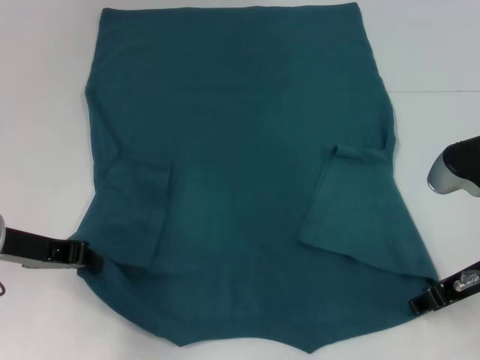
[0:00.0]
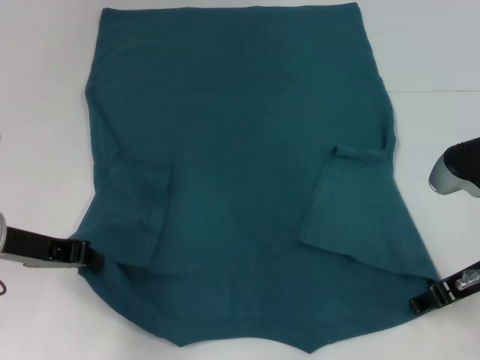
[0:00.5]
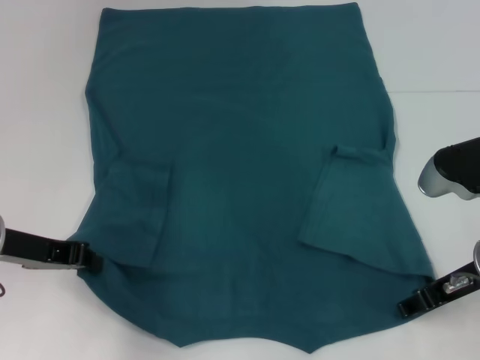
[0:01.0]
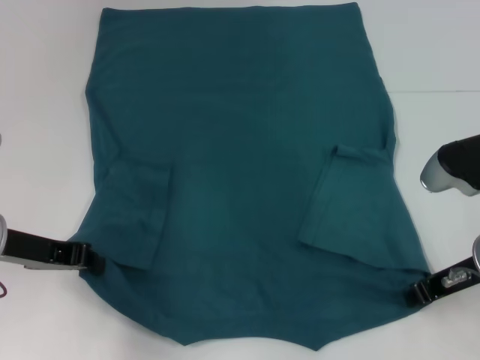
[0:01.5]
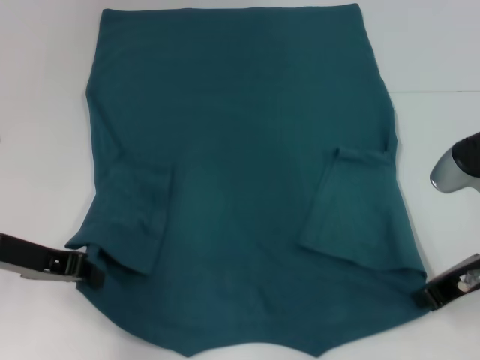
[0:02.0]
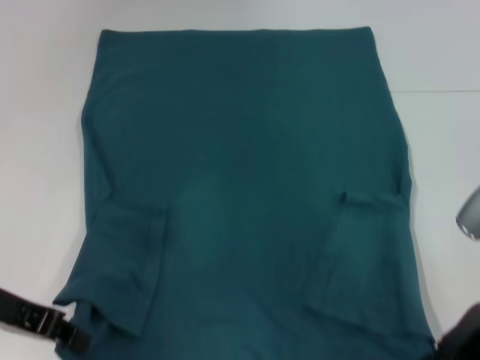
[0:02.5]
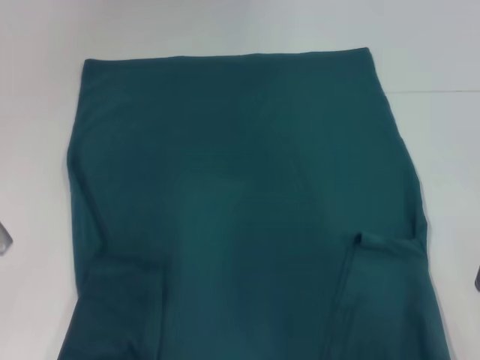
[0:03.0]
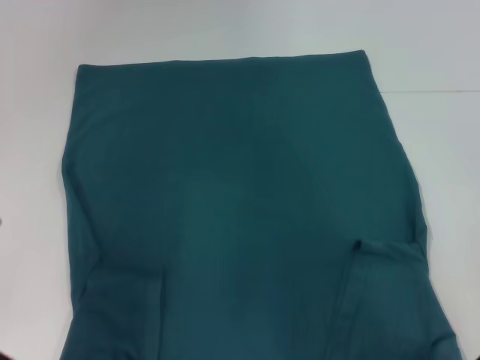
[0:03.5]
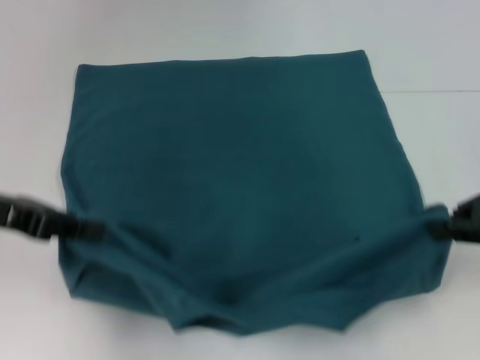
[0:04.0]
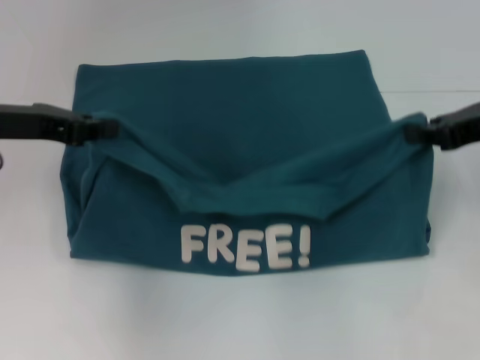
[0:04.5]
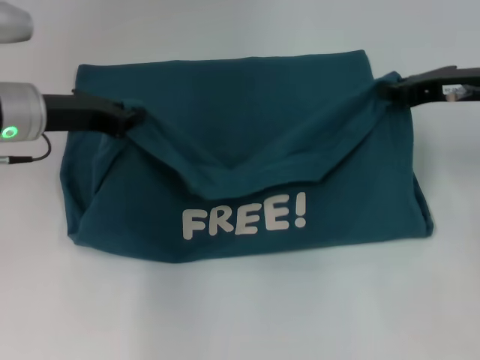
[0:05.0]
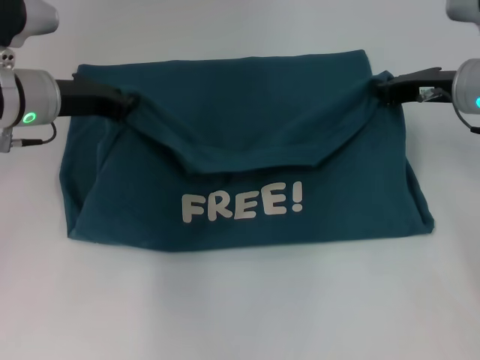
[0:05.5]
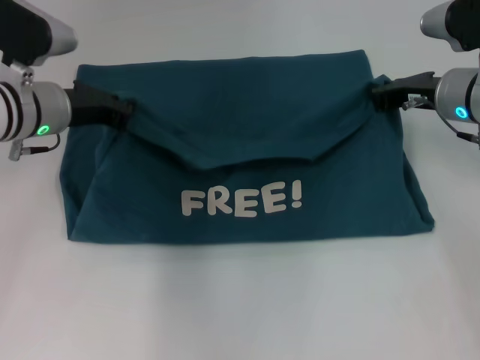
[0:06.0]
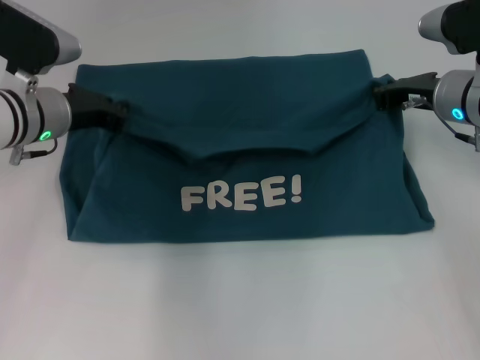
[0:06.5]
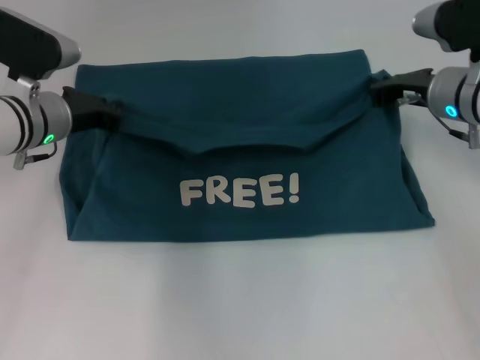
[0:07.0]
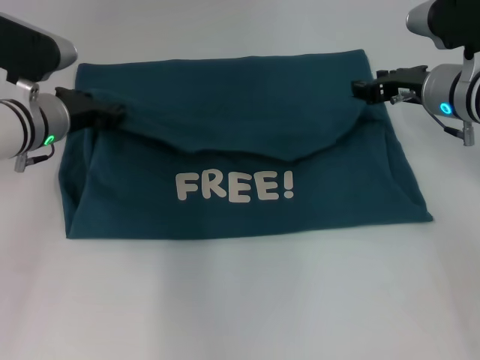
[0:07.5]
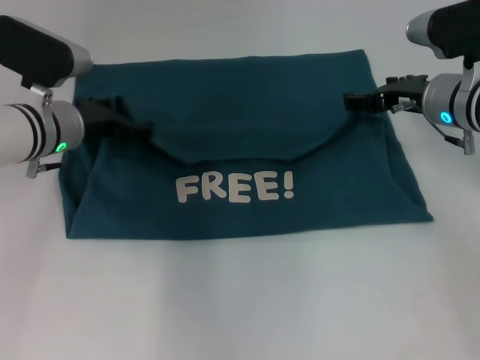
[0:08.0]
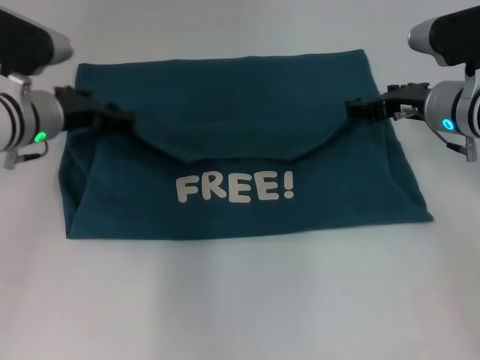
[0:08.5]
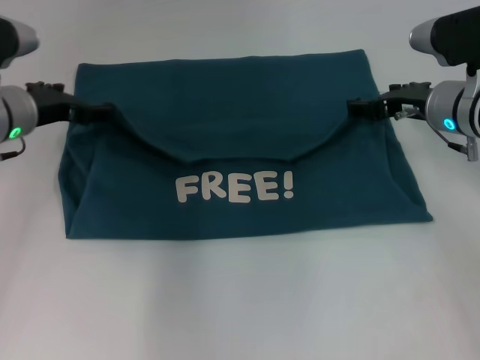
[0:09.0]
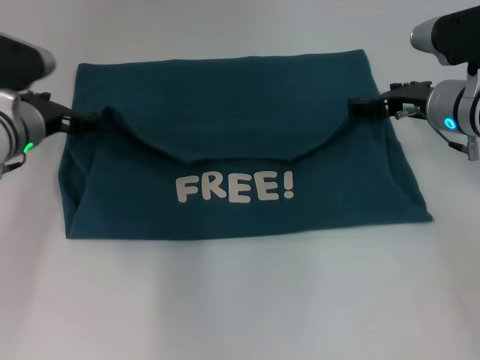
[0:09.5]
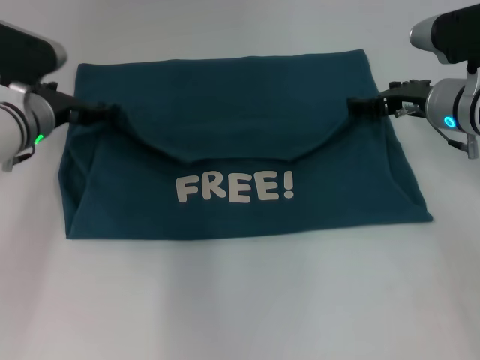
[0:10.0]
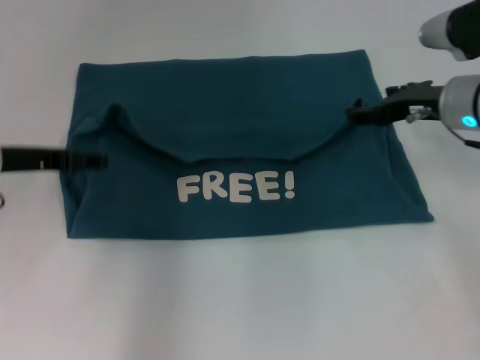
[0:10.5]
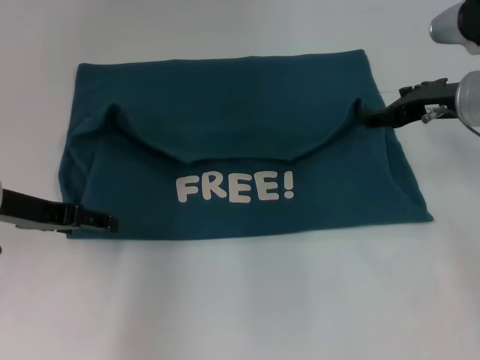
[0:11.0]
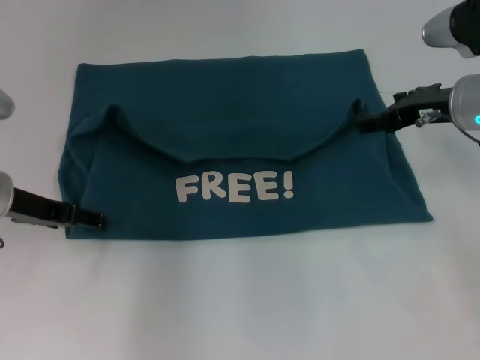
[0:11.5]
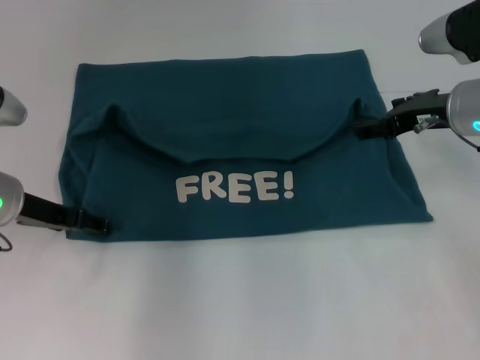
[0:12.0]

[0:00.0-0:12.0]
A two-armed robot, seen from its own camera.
Step, 0:02.0 to 0:08.5: Fold the clothes to the left.
Step, 0:02.0 to 0:08.5: Fold the clothes to the right.
0:00.0 to 0:02.0: The right gripper closes up.
0:02.0 to 0:04.0: The right gripper travels upward and to the right by roughly 10 cm. Meanwhile the left gripper heads upward, covering about 5 cm.
0:04.0 to 0:06.0: The right gripper is displaced forward, downward and to the left by some 15 cm. Meanwhile the left gripper goes about 15 cm forward, to the right and downward.
0:06.0 to 0:08.0: The left gripper opens up; the right gripper opens.
0:08.0 to 0:10.0: The grippers make only small movements.
0:10.0 to 0:12.0: The left gripper shifts about 5 cm backward.

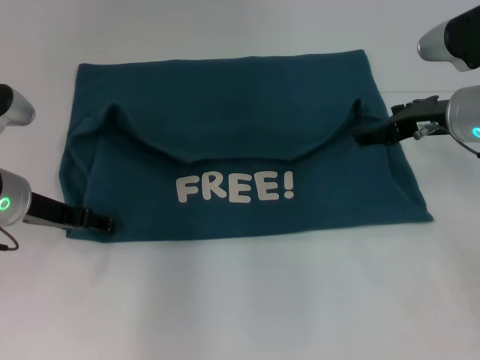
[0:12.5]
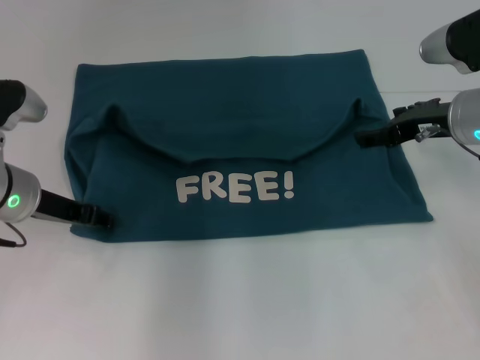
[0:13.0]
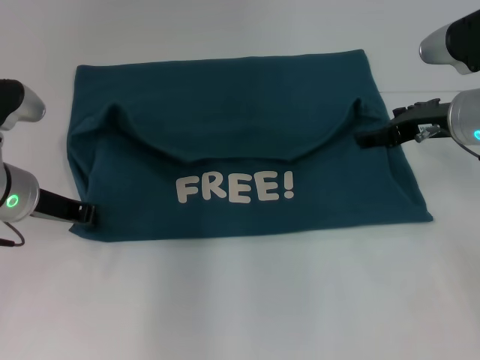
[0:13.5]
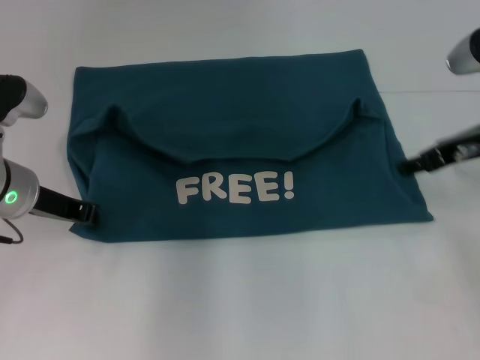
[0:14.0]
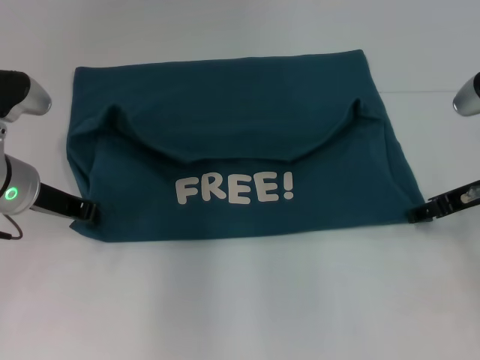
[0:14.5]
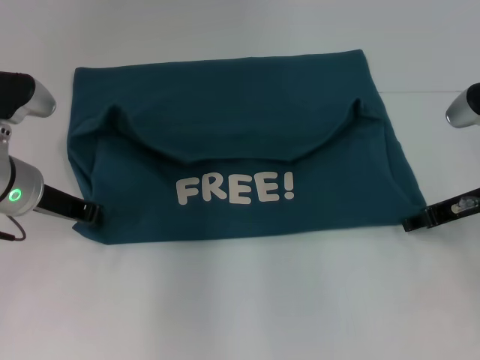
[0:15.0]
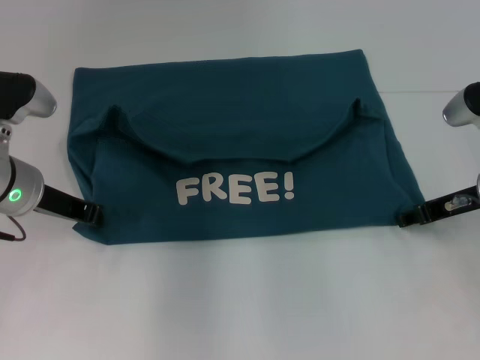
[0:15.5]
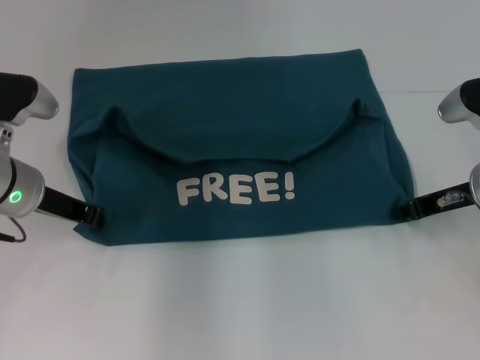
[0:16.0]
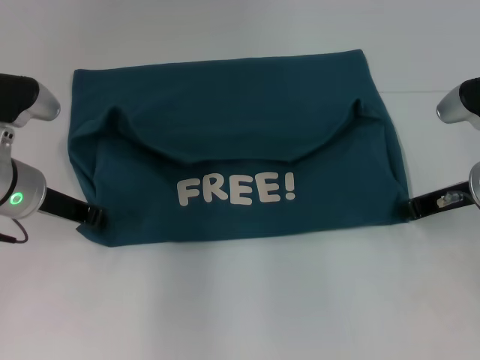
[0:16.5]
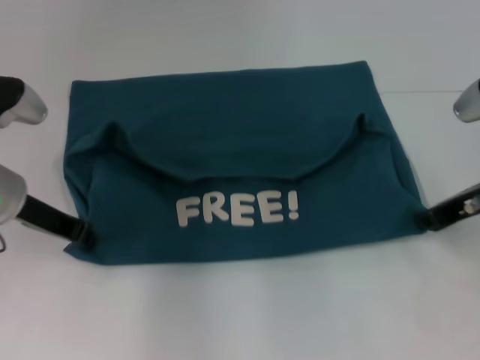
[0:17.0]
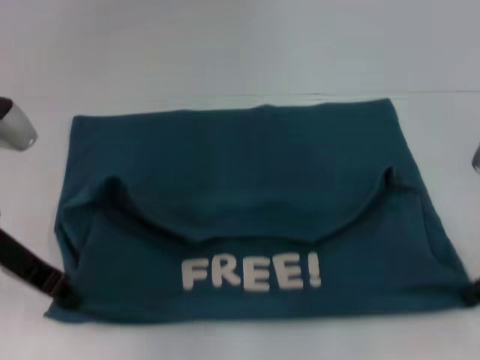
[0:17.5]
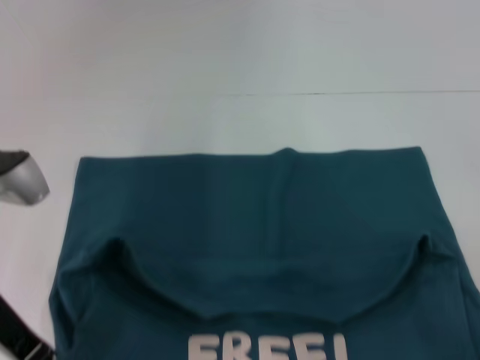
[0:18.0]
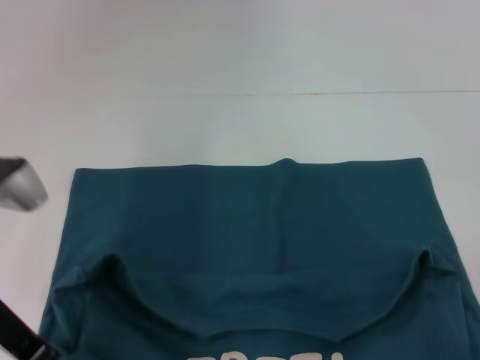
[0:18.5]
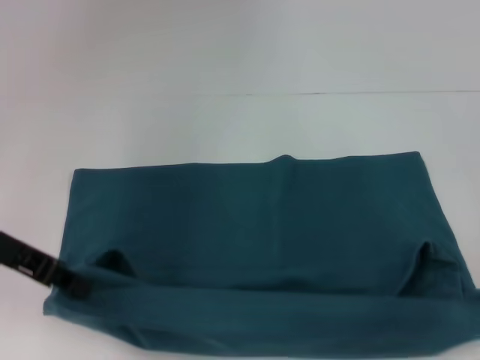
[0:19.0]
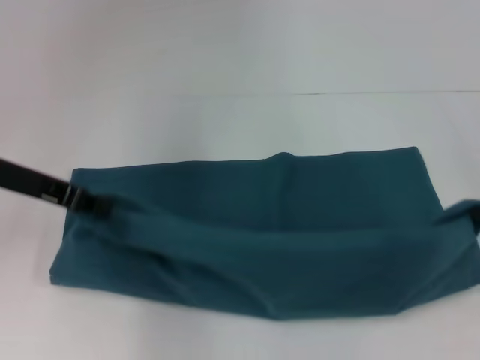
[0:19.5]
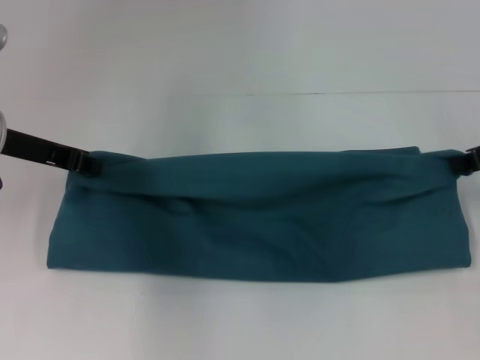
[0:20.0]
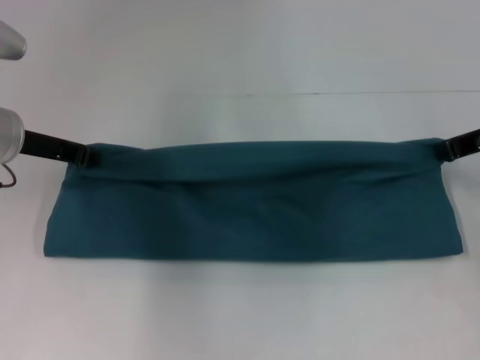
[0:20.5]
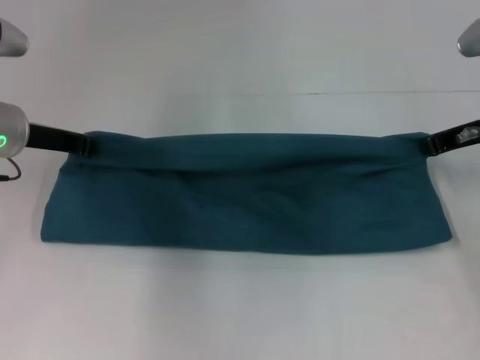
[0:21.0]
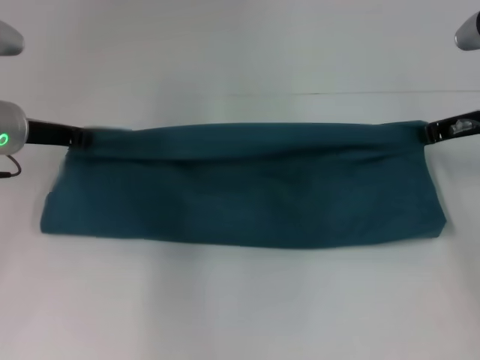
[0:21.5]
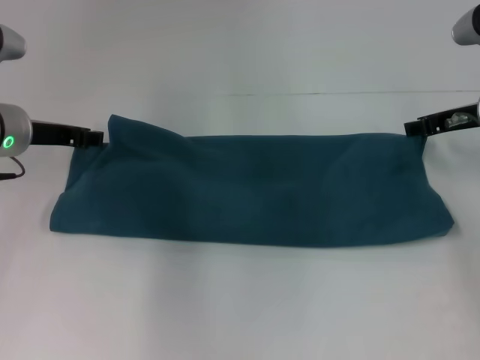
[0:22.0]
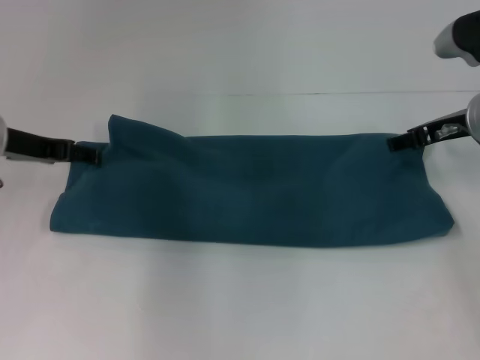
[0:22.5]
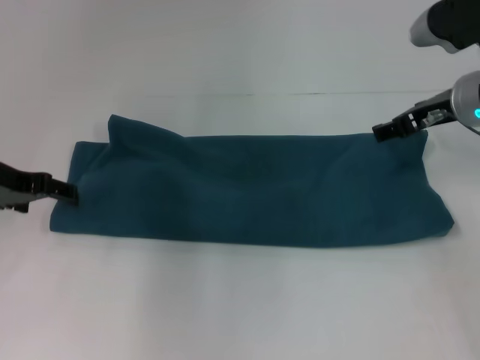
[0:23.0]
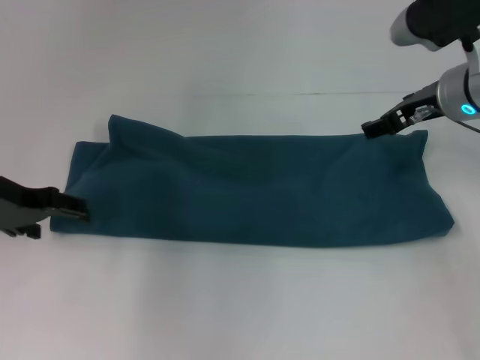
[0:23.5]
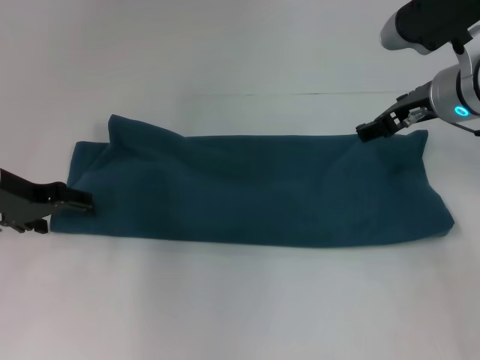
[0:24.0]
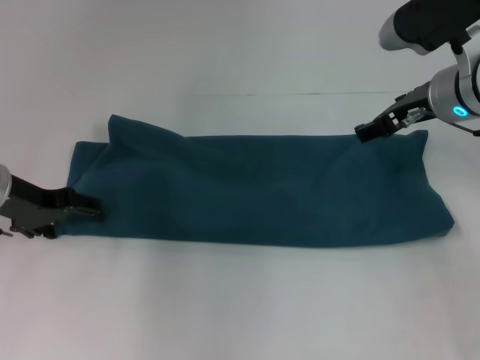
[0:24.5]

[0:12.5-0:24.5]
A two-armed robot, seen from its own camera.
Step, 0:12.5 to 0:18.5: Pull the clothes with your left hand.
Step, 0:12.5 to 0:18.5: Pull the clothes with your right hand.
Step, 0:19.0 to 0:22.0: Fold the clothes to the left.
Step, 0:19.0 to 0:22.0: Fold the clothes to the right.
0:12.5 to 0:14.5: The right gripper moves about 5 cm. The left gripper closes up.
0:14.5 to 0:16.5: The right gripper closes.
0:16.5 to 0:18.5: The grippers both shift backward by some 10 cm.
0:18.5 to 0:20.5: Both grippers move forward, approximately 10 cm.
0:20.5 to 0:22.5: The right gripper opens up; the left gripper opens its fingers.
0:22.5 to 0:24.5: The right gripper moves some 5 cm.

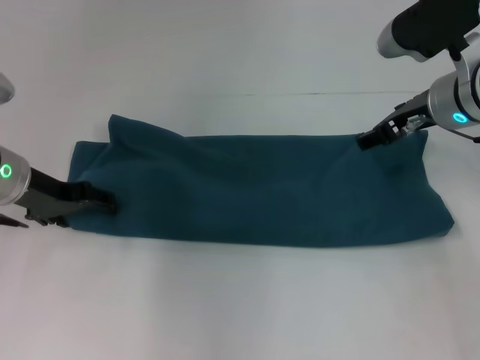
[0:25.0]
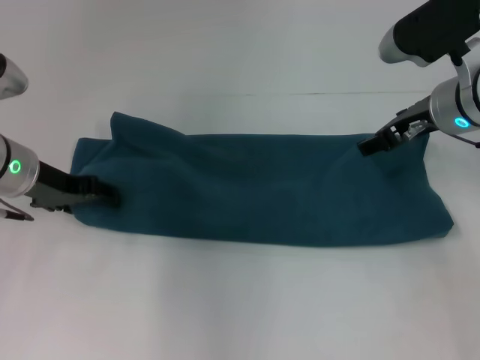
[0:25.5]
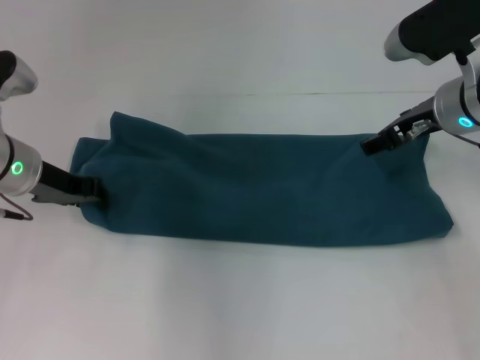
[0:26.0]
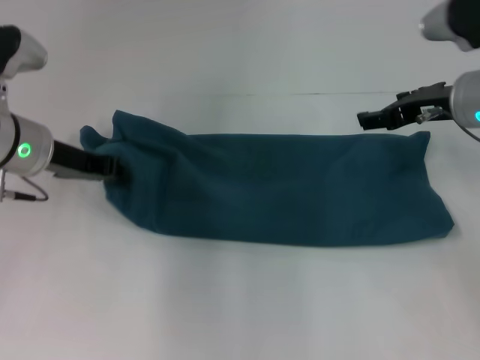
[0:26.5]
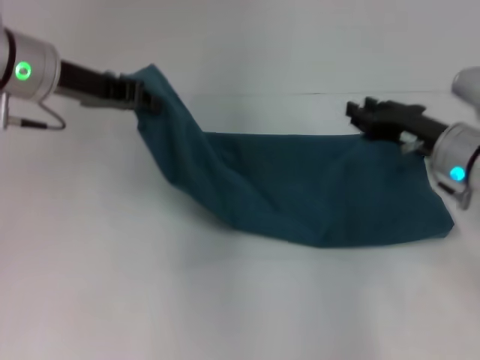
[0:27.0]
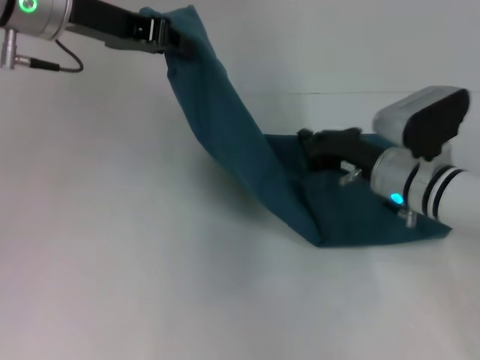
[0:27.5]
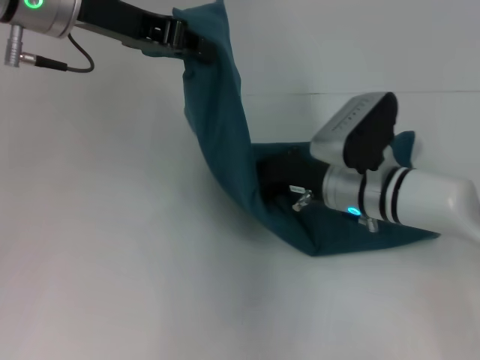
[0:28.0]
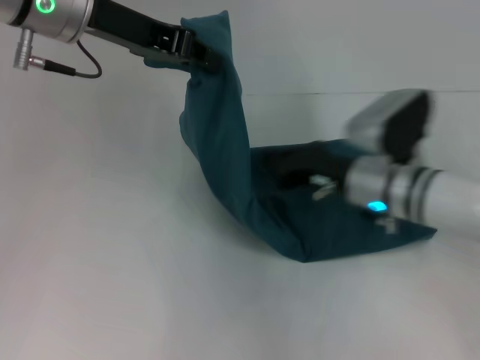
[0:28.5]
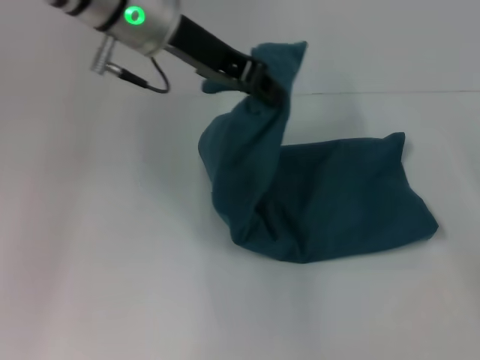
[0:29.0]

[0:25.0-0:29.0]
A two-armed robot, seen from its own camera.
Step, 0:25.0 to 0:28.5: Press the middle of the clothes with your right hand.
0:25.0 to 0:27.0: The right gripper moves downward, some 10 cm, and closes its fingers. The left gripper shifts approximately 10 cm upward, and closes up.
0:27.0 to 0:29.0: The left gripper moves to the right and upward, roughly 10 cm. The right gripper travels to the right and backward by roughly 20 cm, and closes.
